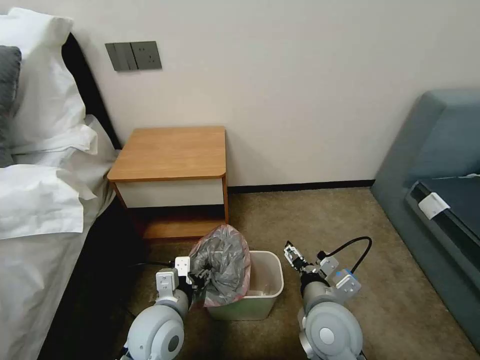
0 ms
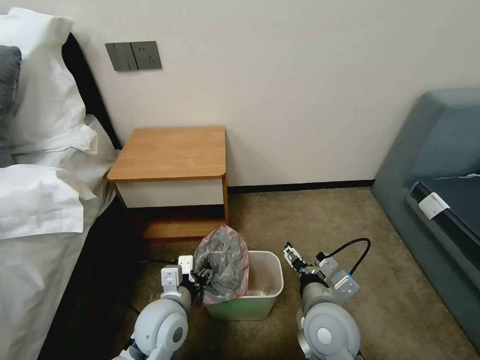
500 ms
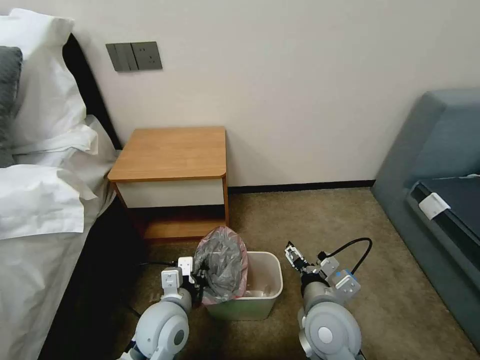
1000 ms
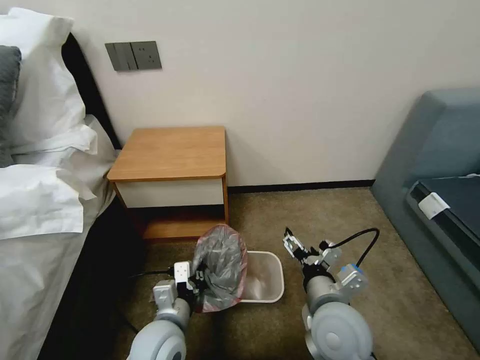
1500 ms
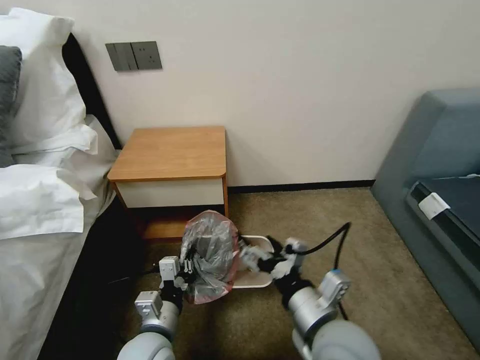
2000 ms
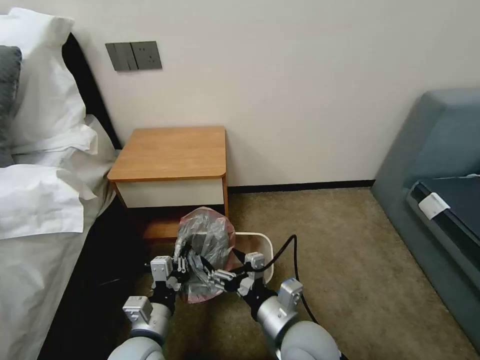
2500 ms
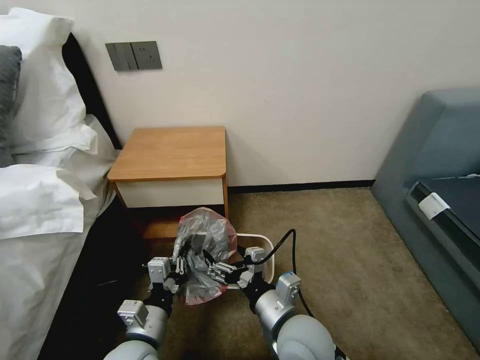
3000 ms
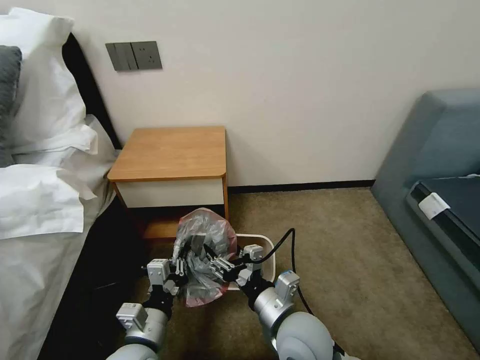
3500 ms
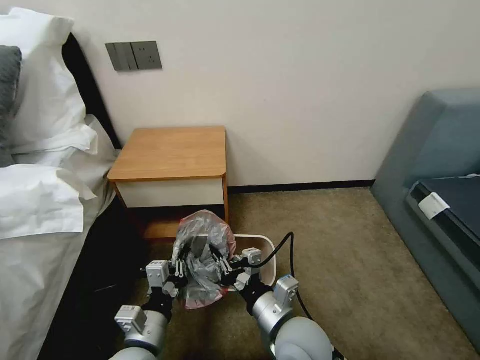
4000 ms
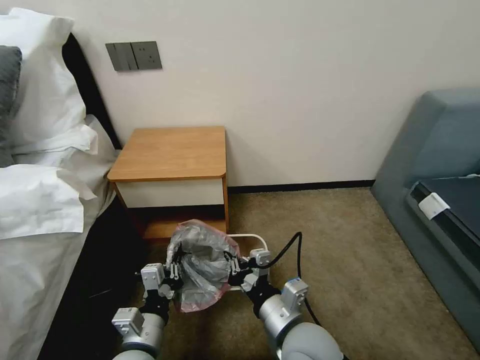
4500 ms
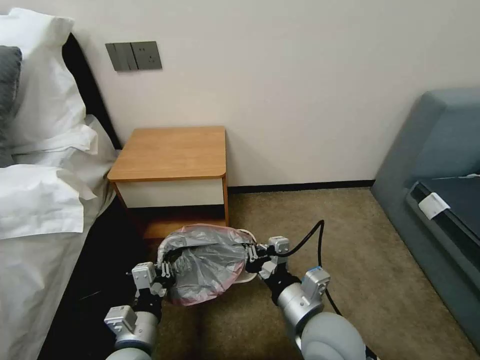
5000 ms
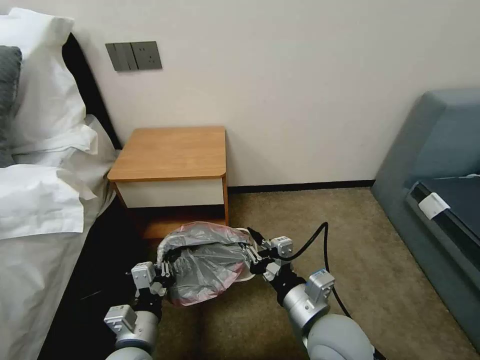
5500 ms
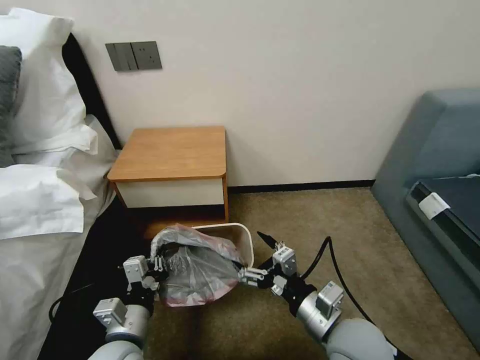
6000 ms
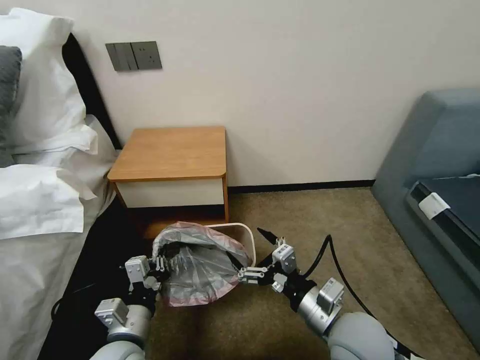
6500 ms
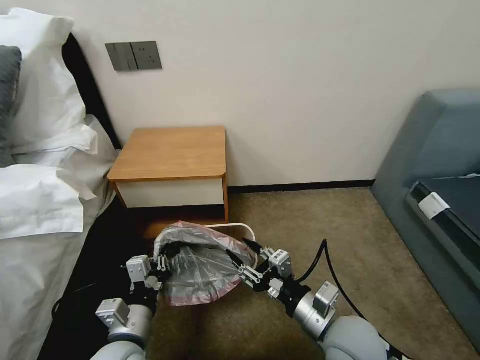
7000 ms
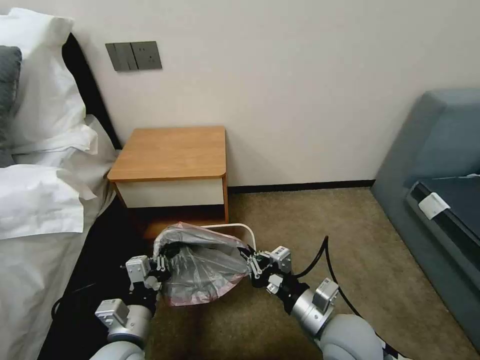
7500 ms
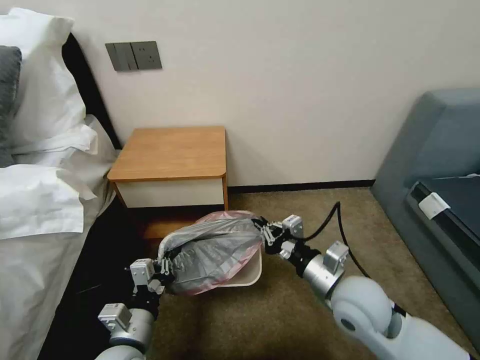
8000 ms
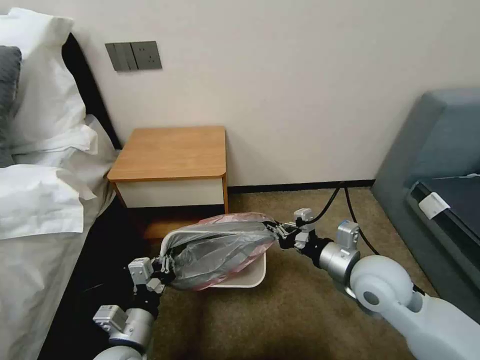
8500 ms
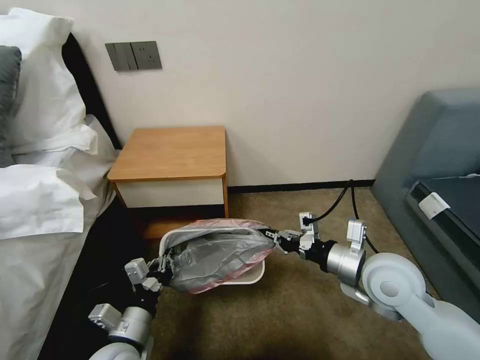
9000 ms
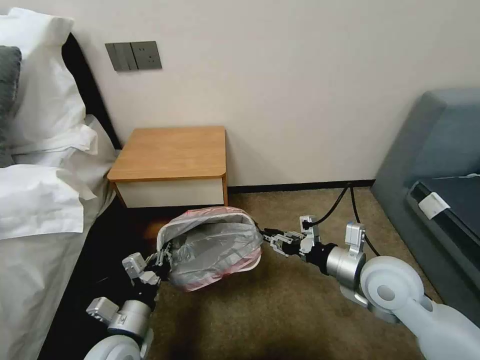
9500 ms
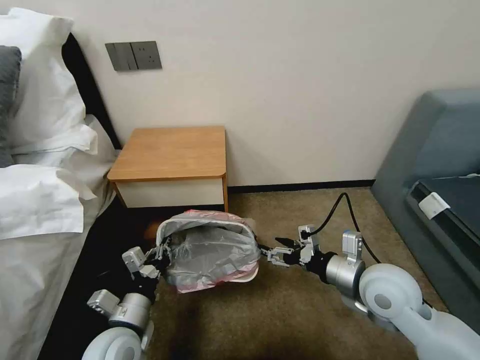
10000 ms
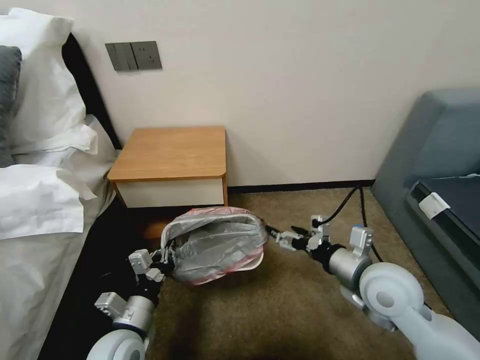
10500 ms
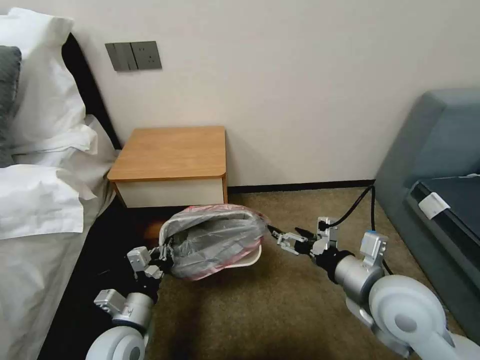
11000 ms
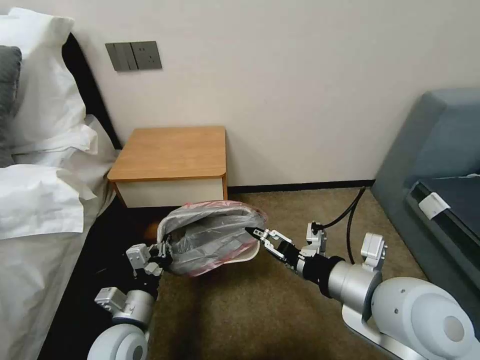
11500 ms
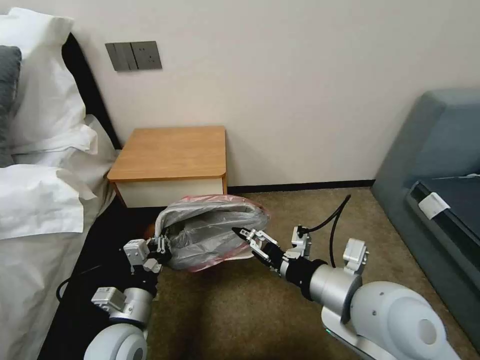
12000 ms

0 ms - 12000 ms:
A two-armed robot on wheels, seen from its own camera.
Task of the whole recording: Pick up the garbage bag from the table and place it over the trash can.
0 ms - 2000 ms: The right gripper goes roughly 5 cm upward. Meanwhile the left gripper moves about 5 cm, and closes its fingers.
2000 ms - 4000 ms: The right gripper travels downward by about 5 cm, and closes.
4000 ms - 6000 ms: The right gripper shifts about 10 cm to the right, and opens up.
6000 ms - 8000 ms: The right gripper moves forward, approximately 10 cm, and closes its fingers.
8000 ms - 10000 ms: The right gripper moves to the right, roughly 5 cm, and opens up.
10000 ms - 12000 ms: The right gripper moves upward, to the left and backward, about 15 cm.

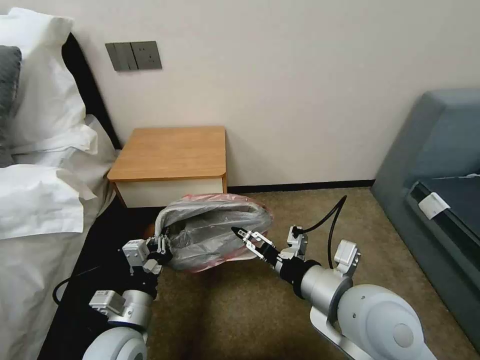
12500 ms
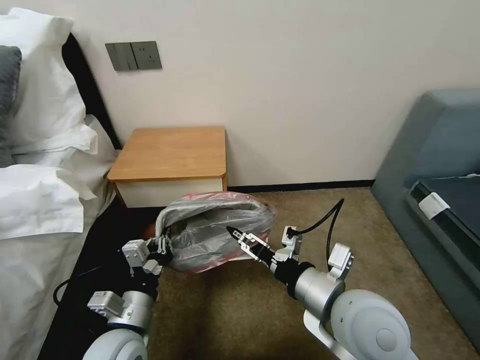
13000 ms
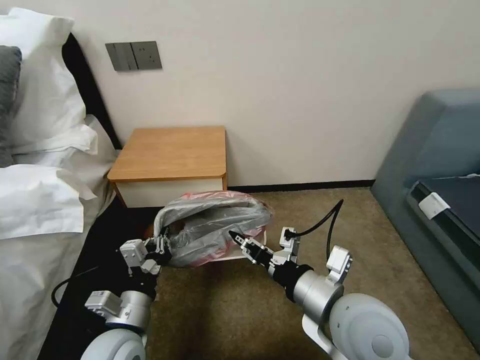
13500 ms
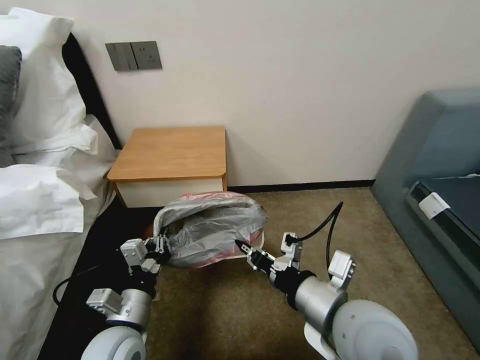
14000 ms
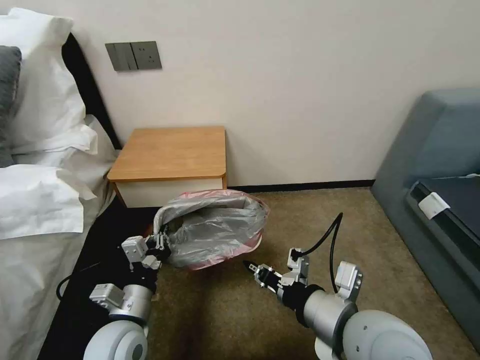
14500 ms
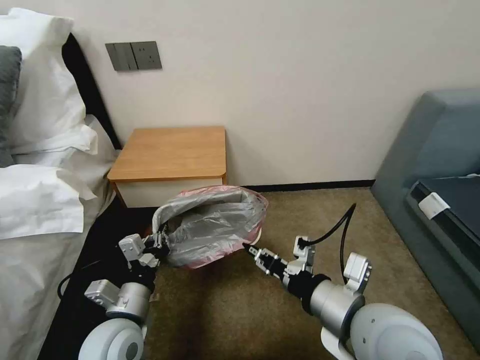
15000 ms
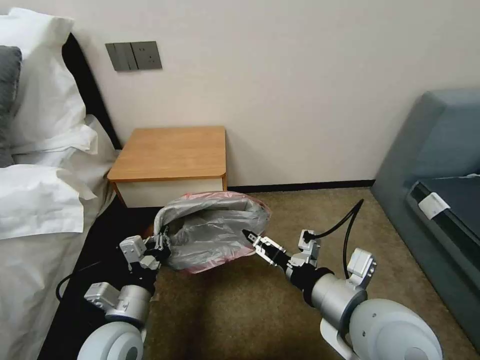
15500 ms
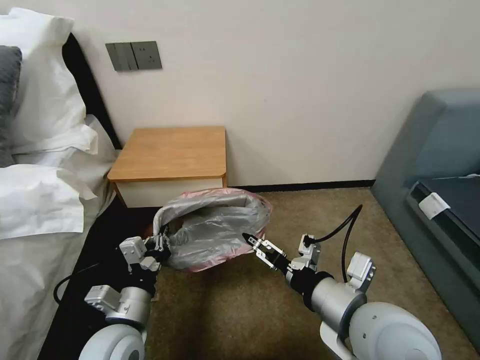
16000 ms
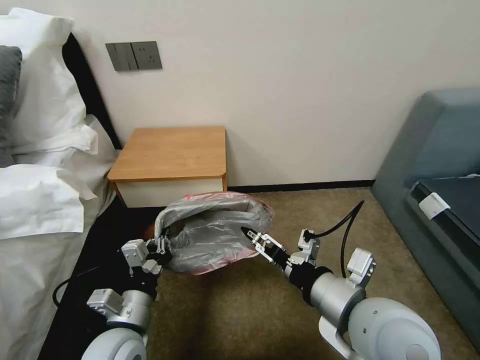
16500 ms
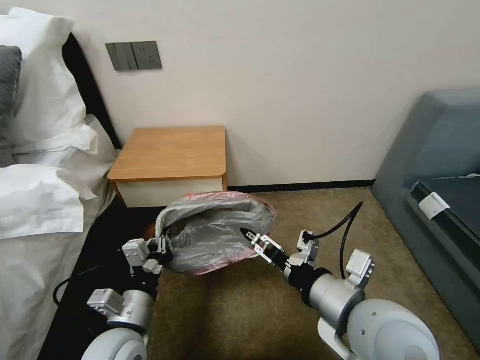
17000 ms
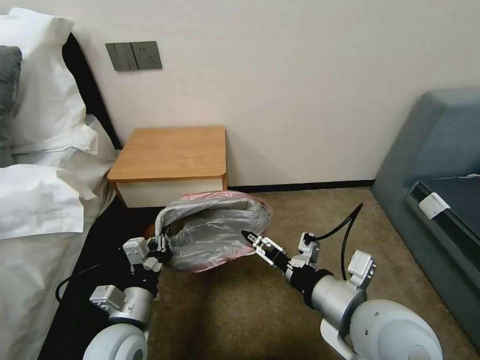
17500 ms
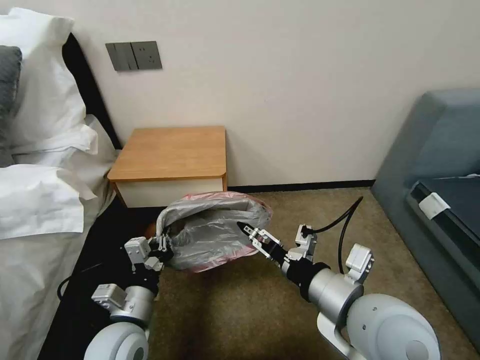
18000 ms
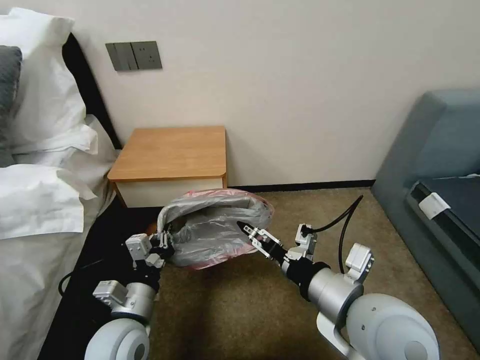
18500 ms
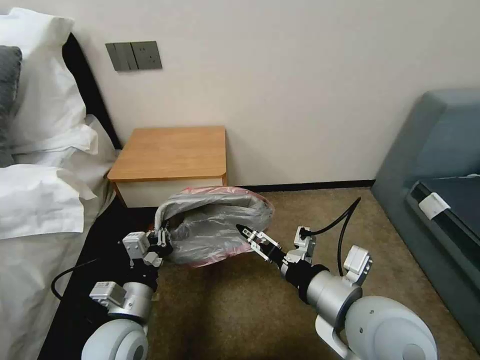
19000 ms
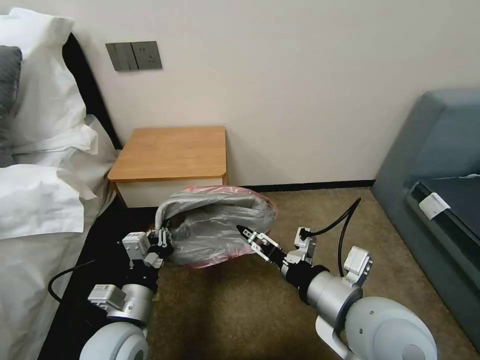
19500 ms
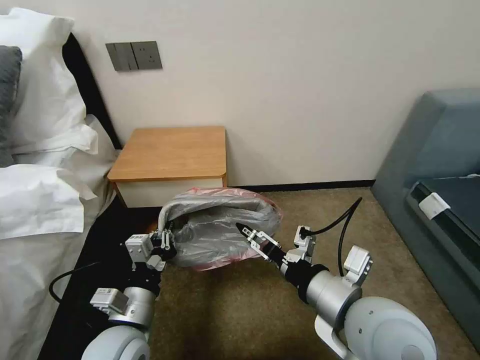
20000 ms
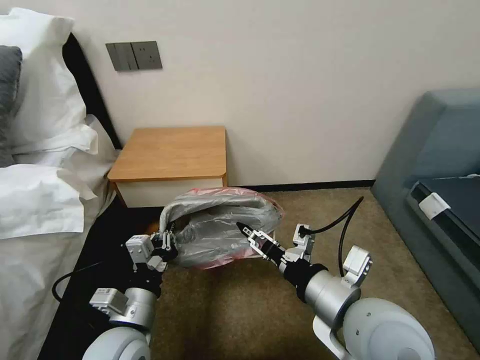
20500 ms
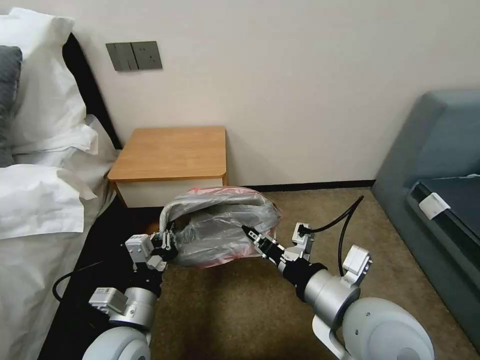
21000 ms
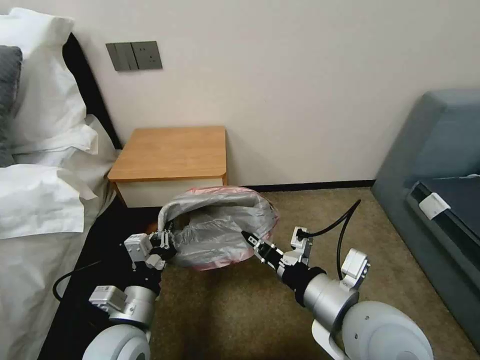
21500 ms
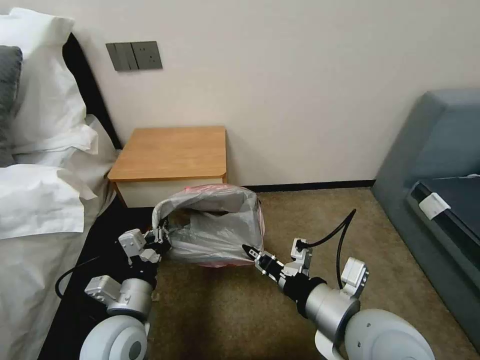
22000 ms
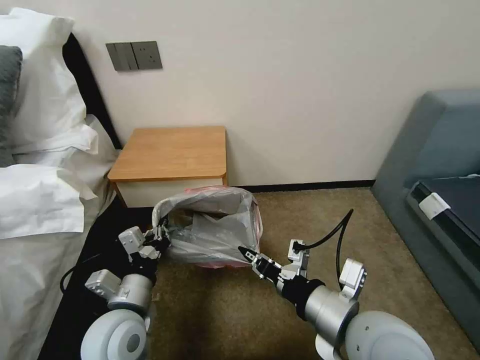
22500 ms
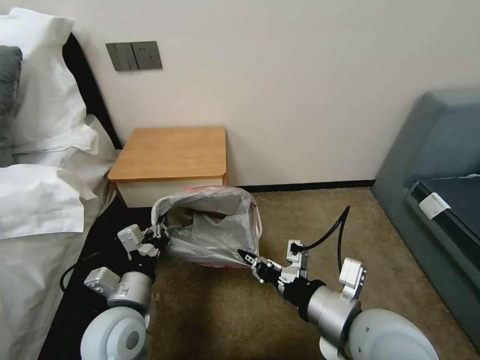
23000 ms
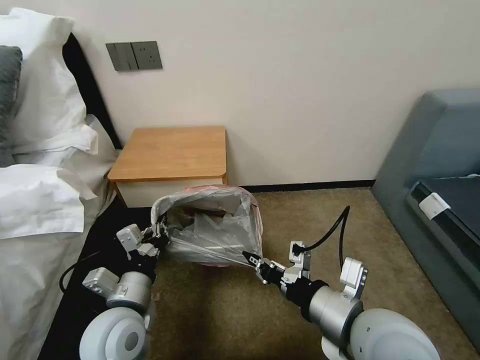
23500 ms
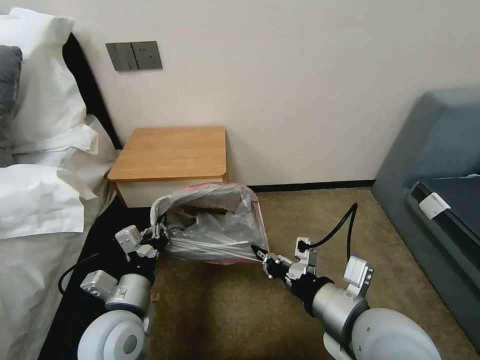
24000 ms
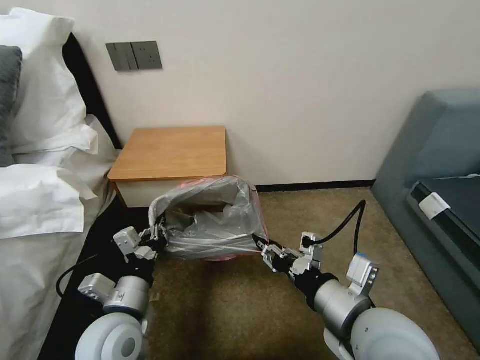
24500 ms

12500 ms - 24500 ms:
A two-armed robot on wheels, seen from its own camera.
Task of the whole recording: Pick up the garbage bag from the table and place it over the trash can.
12500 ms - 14500 ms: The right gripper closes up.
14500 ms - 16500 ms: The right gripper opens up.
16500 ms - 18500 ms: The grippers stay close to where they were, moving slightly.
18500 ms - 20500 ms: The right gripper closes its fingers.
20500 ms - 22500 ms: The right gripper closes its fingers.
22500 ms - 24500 ms: The right gripper opens.

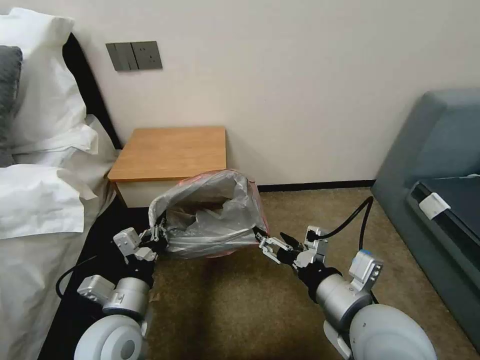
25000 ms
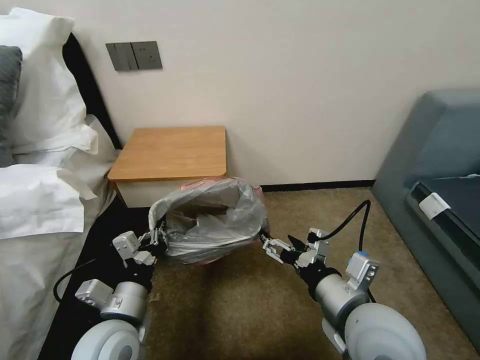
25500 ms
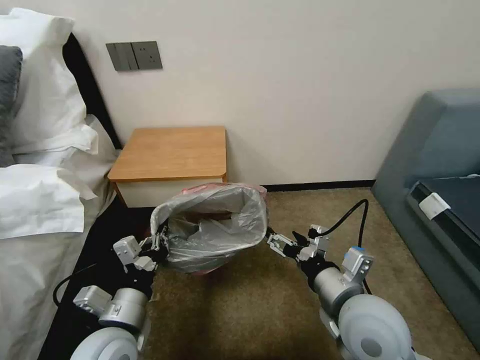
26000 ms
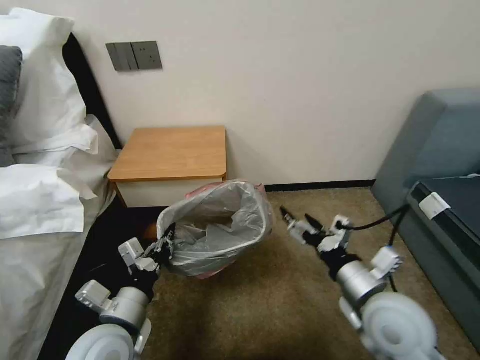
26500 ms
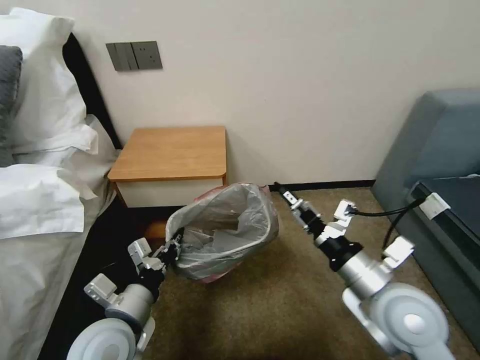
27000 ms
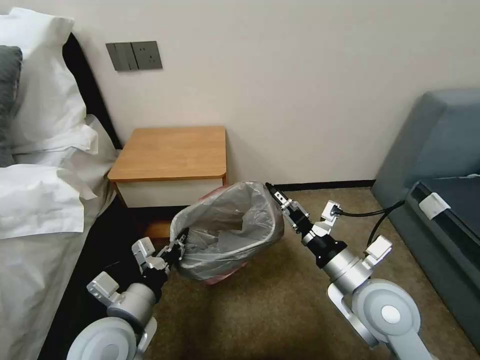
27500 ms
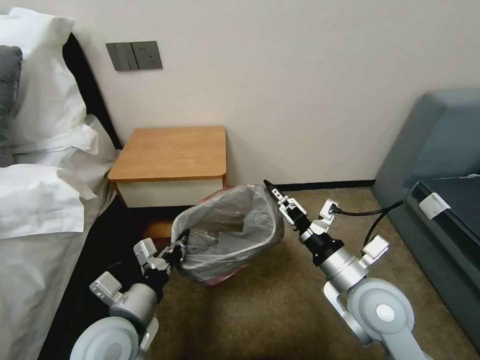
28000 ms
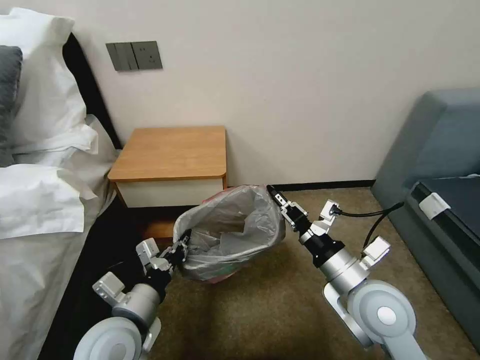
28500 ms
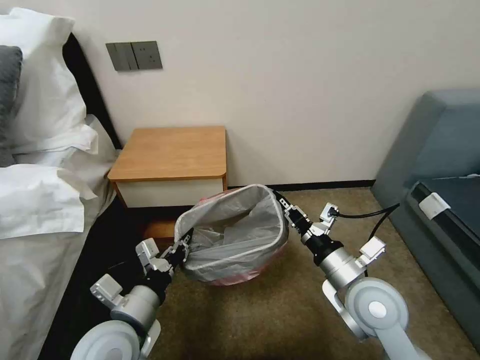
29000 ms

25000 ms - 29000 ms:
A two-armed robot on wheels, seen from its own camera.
Task of the whole recording: Pick up the garbage bag from the table and place it over the trash can.
25000 ms - 27000 ms: The right gripper heads to the right, covering roughly 5 cm.
27000 ms - 29000 ms: The right gripper moves some 5 cm, and closes its fingers.
